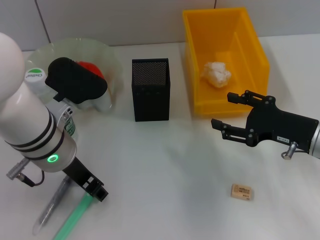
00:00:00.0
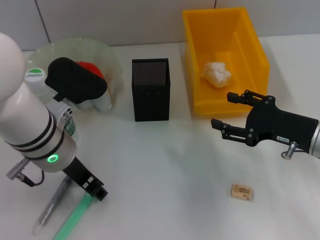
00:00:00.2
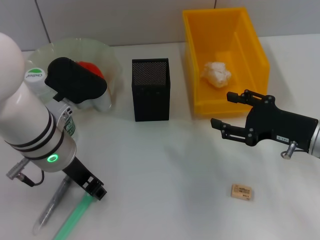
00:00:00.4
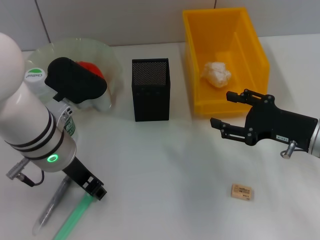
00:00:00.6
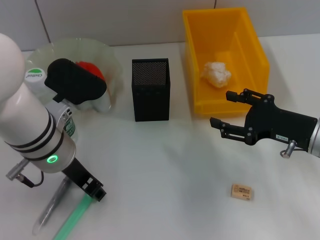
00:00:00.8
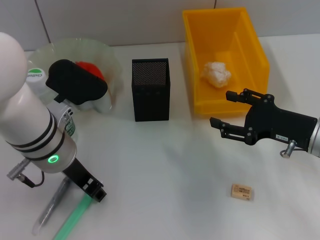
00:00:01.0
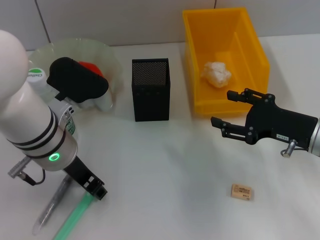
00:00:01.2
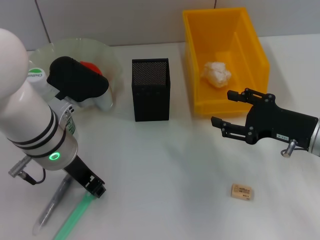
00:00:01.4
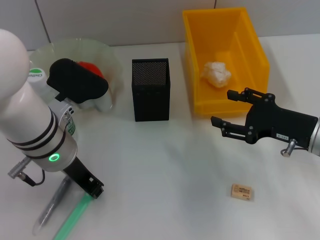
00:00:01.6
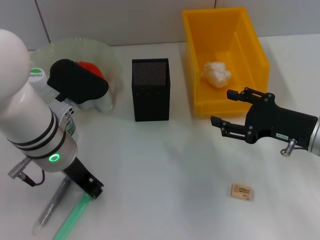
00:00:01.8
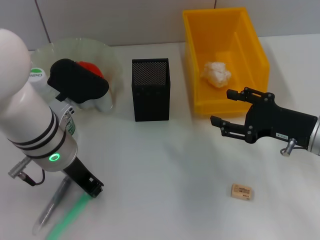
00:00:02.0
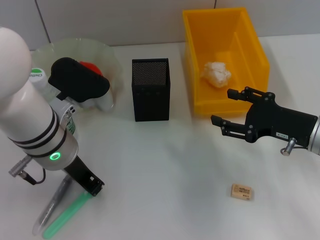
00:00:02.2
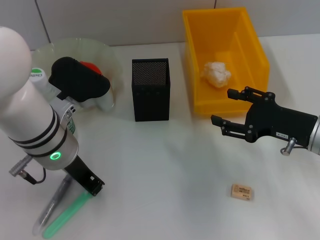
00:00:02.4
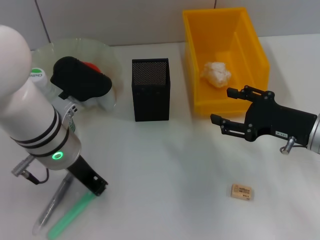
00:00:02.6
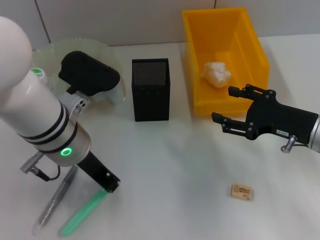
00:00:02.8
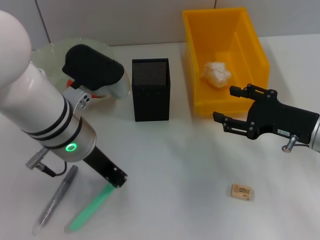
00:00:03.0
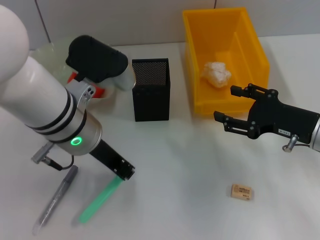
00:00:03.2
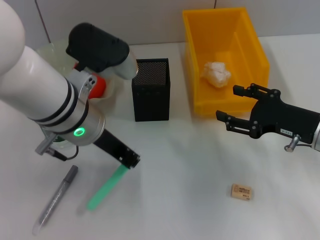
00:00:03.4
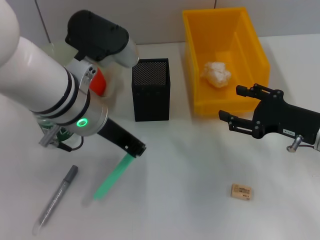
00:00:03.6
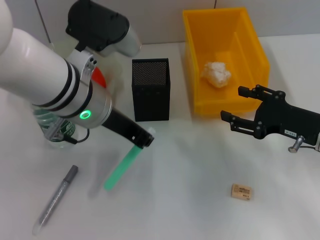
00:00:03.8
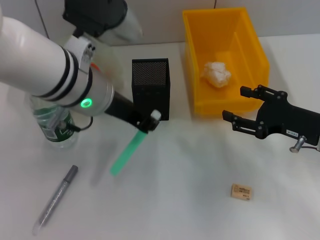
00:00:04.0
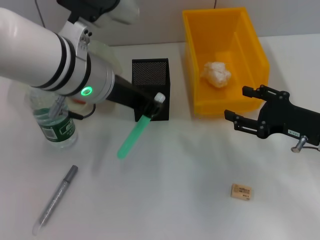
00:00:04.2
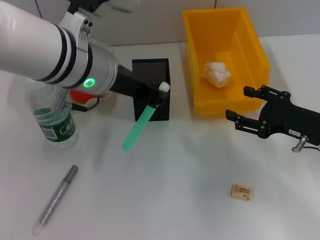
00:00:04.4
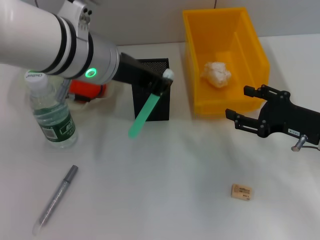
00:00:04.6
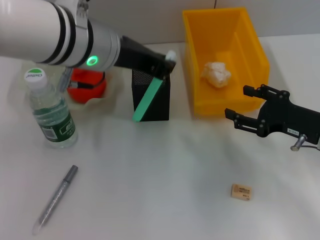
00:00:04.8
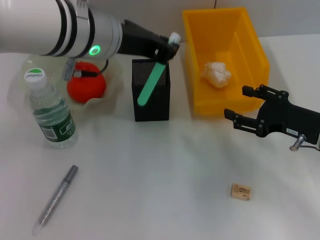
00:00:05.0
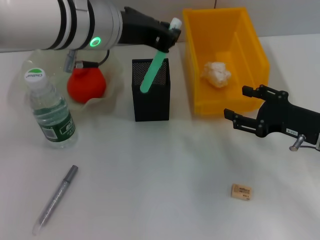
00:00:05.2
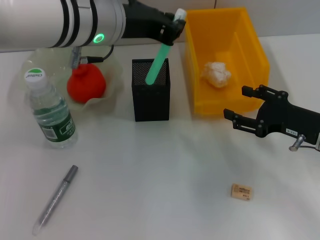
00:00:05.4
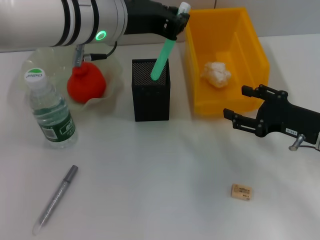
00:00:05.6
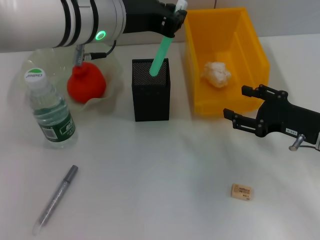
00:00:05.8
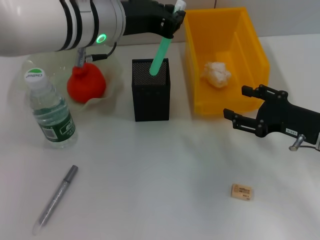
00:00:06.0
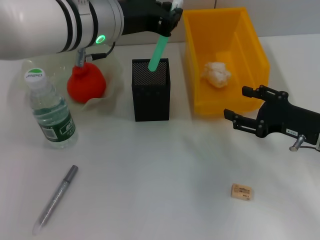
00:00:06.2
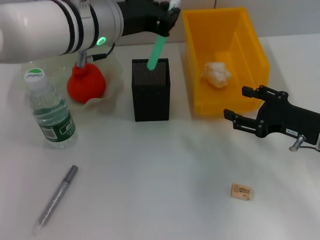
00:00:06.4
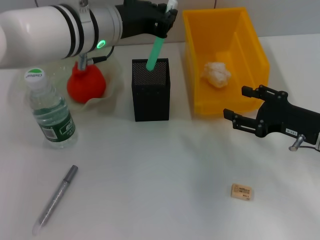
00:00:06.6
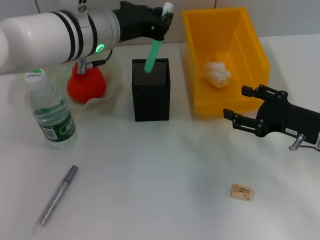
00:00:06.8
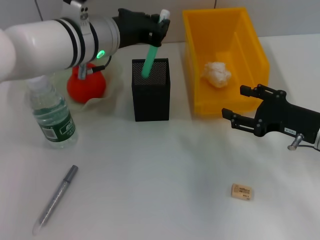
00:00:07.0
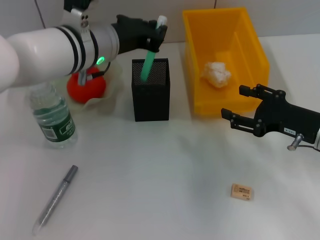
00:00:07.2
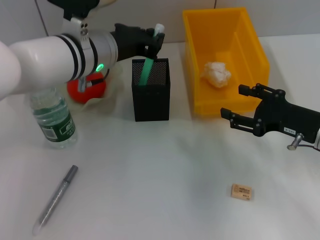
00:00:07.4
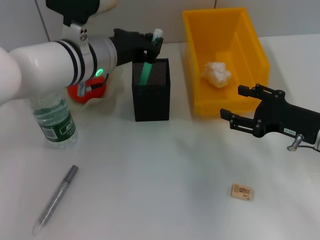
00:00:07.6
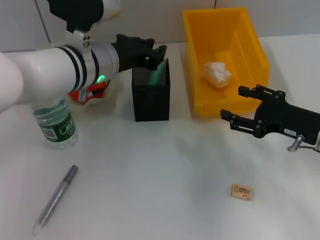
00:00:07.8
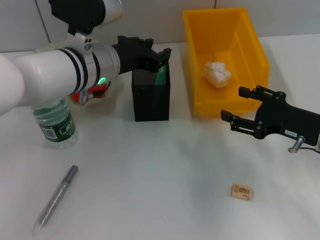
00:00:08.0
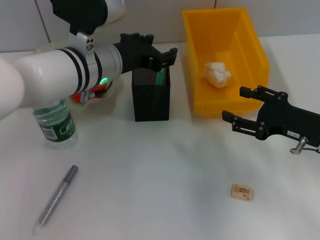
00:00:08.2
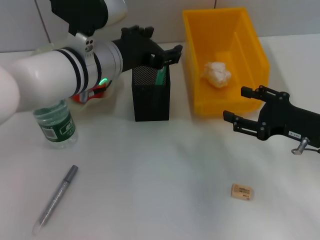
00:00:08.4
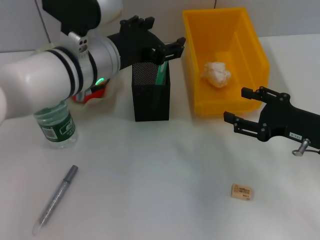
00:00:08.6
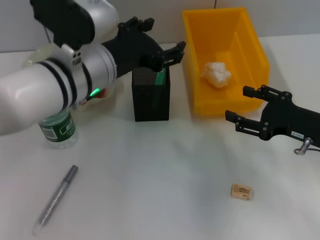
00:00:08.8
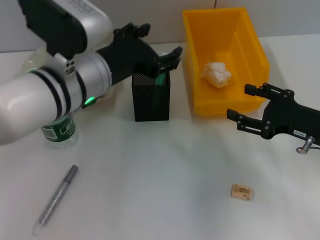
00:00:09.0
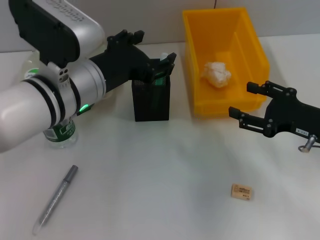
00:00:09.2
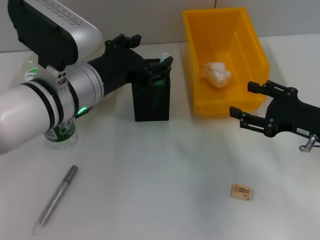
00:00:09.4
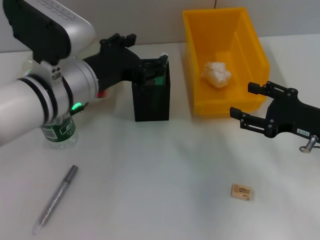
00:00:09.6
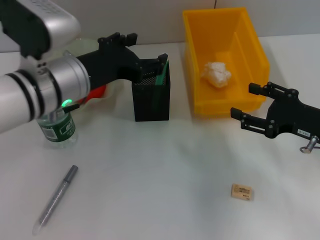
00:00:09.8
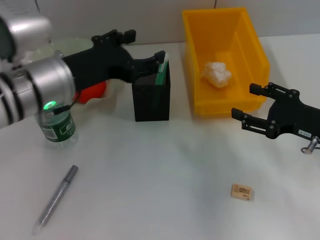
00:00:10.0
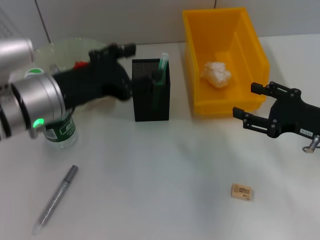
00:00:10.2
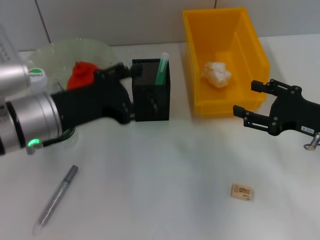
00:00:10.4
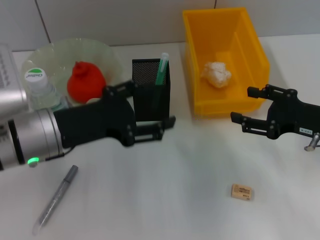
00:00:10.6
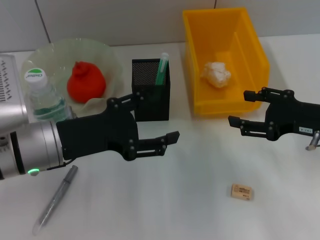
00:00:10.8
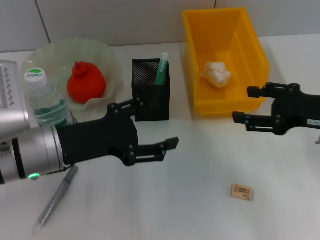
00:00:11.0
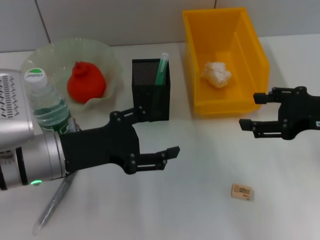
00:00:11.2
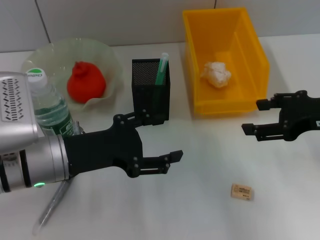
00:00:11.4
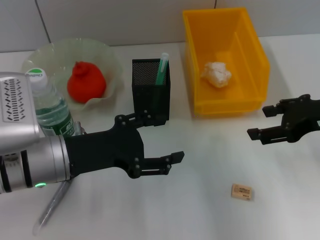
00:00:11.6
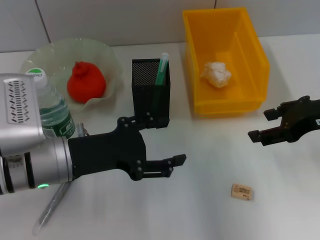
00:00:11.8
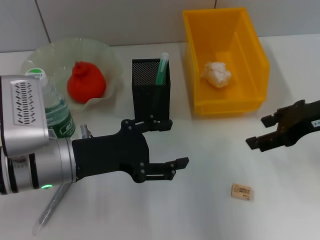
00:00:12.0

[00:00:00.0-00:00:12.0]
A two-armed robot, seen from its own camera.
Step, 00:00:00.0 to 00:00:02.8: Grab the blue utility knife with the left hand.
Step, 00:00:03.0 to 00:00:08.2: Place the blue utility knife into the pen holder with the left hand.
00:00:00.0 to 00:00:01.6: The two grippers keep their place.
00:00:01.6 to 00:00:03.0: The grippers move only a little.
00:00:03.0 to 00:00:04.4: The left gripper moves upward, some 5 cm.
00:00:06.0 to 00:00:07.6: The left gripper moves downward, some 5 cm.
00:00:07.6 to 00:00:09.0: The left gripper shifts some 5 cm backward, and opens its fingers.
00:00:09.0 to 00:00:10.4: The left gripper travels to the left by some 5 cm.
00:00:10.4 to 00:00:12.0: The right gripper is displaced upward by about 10 cm.

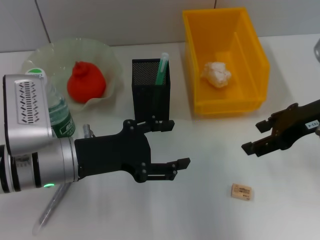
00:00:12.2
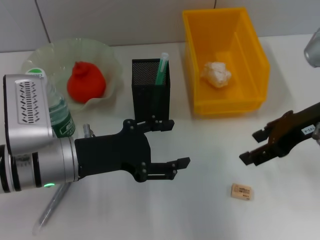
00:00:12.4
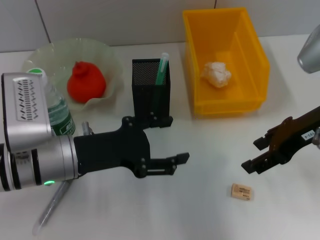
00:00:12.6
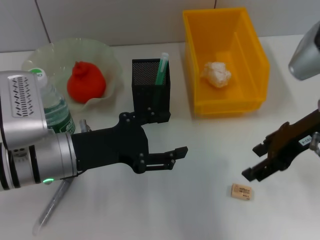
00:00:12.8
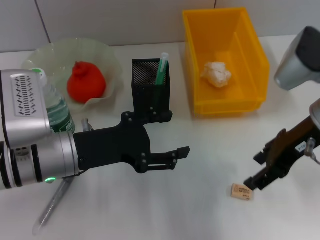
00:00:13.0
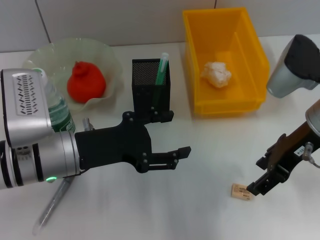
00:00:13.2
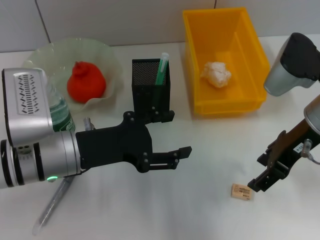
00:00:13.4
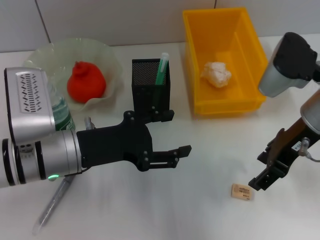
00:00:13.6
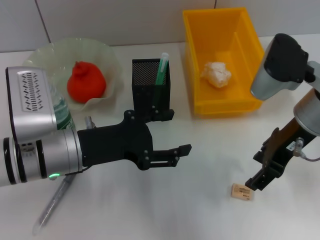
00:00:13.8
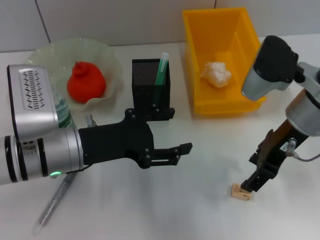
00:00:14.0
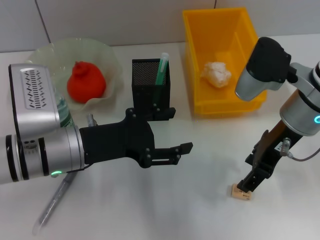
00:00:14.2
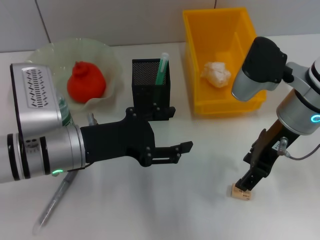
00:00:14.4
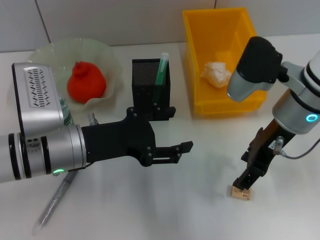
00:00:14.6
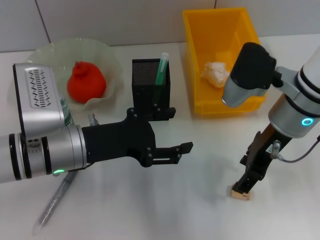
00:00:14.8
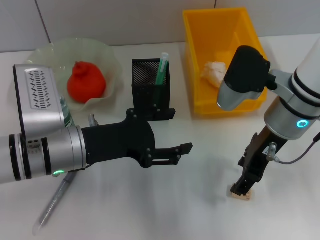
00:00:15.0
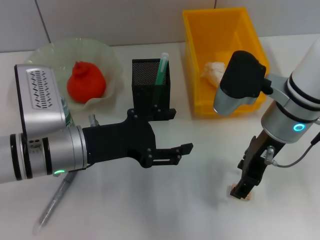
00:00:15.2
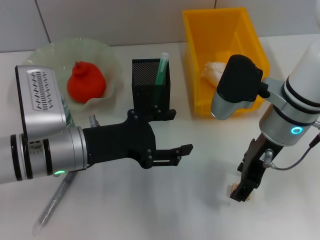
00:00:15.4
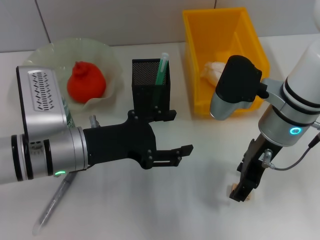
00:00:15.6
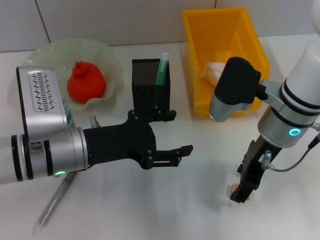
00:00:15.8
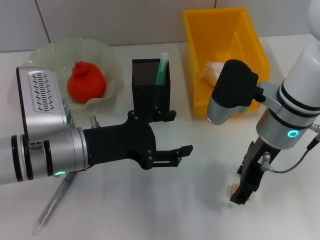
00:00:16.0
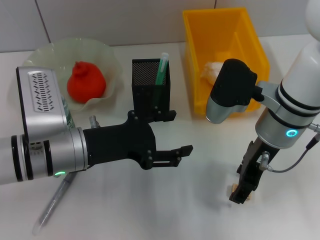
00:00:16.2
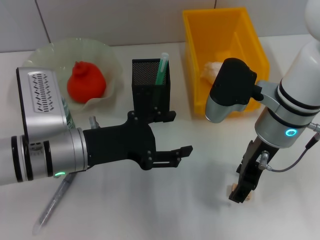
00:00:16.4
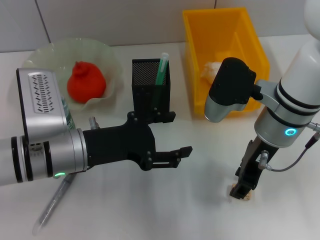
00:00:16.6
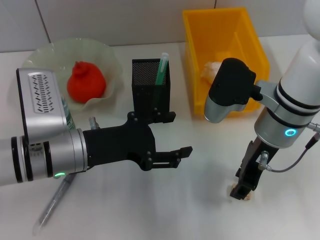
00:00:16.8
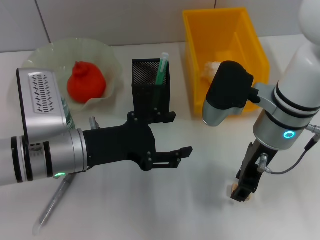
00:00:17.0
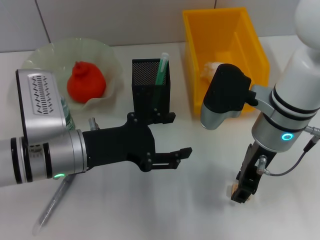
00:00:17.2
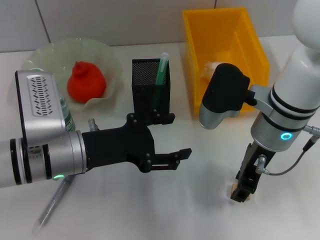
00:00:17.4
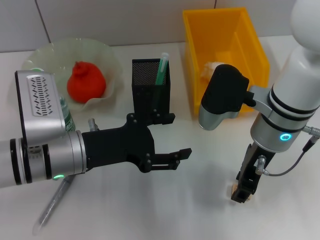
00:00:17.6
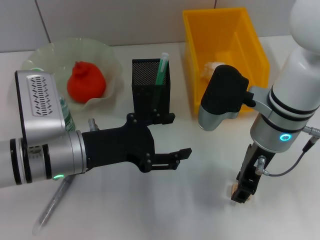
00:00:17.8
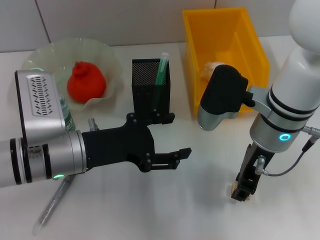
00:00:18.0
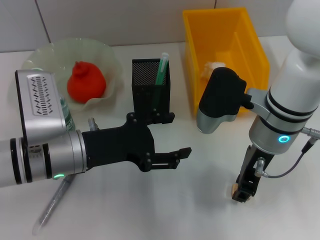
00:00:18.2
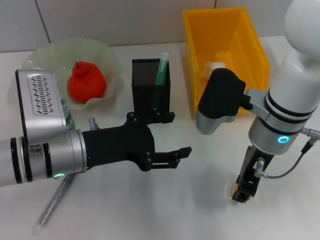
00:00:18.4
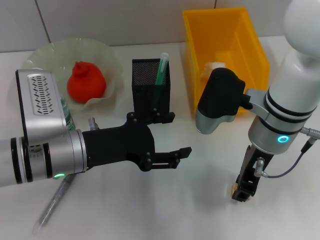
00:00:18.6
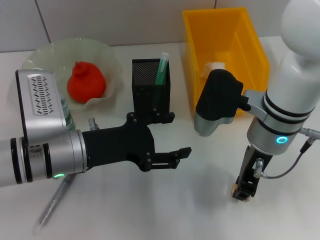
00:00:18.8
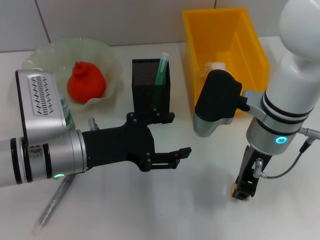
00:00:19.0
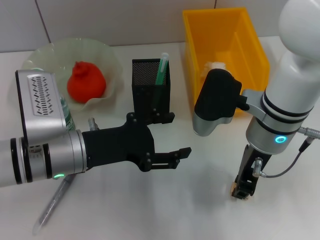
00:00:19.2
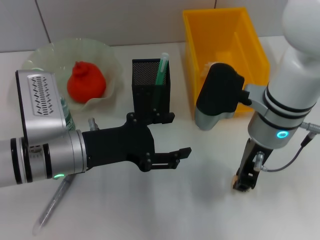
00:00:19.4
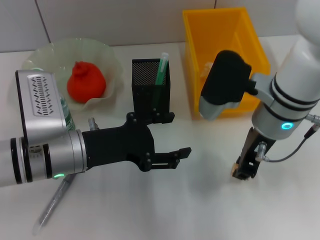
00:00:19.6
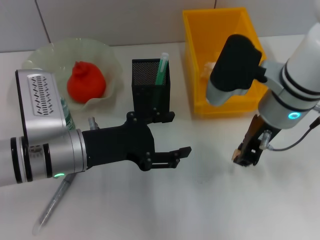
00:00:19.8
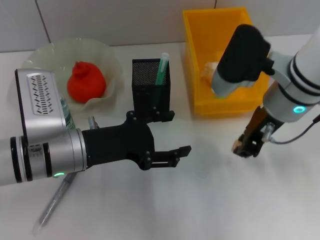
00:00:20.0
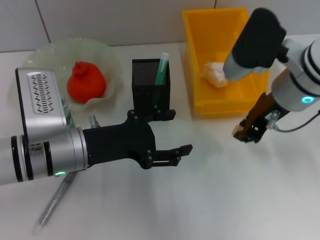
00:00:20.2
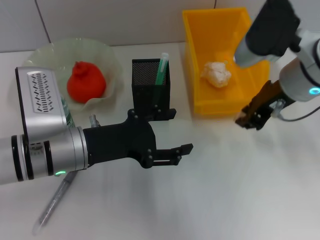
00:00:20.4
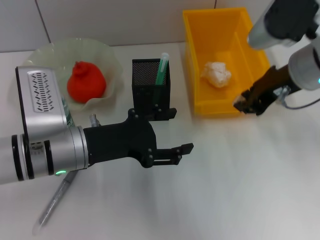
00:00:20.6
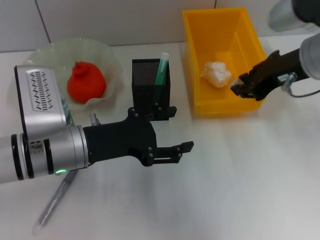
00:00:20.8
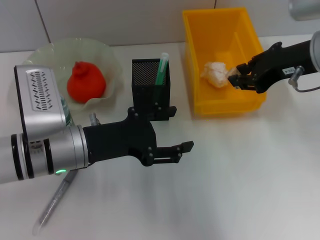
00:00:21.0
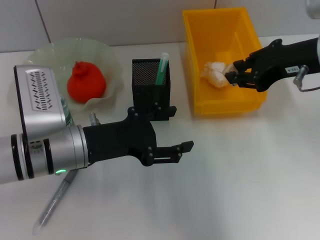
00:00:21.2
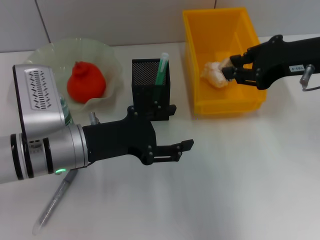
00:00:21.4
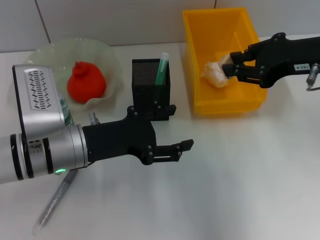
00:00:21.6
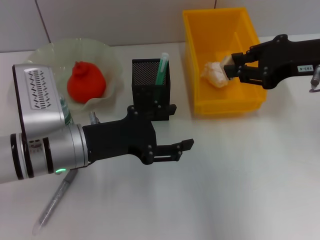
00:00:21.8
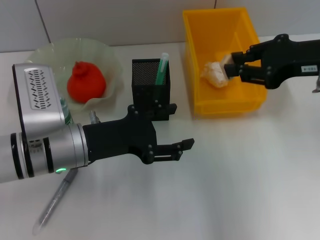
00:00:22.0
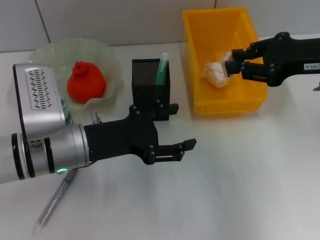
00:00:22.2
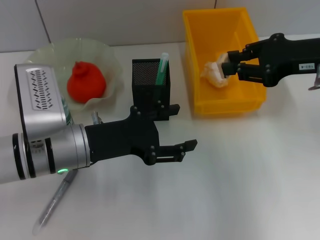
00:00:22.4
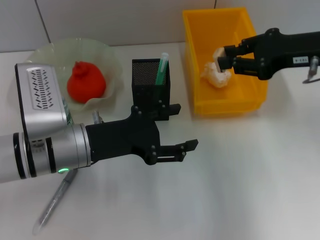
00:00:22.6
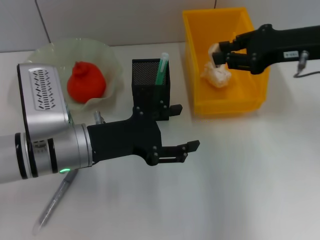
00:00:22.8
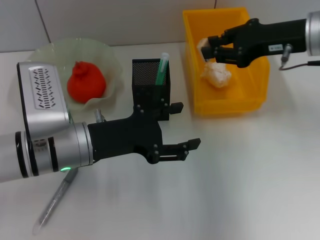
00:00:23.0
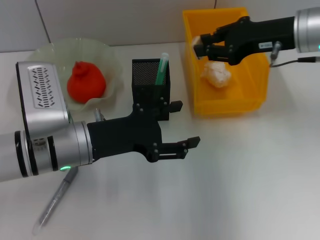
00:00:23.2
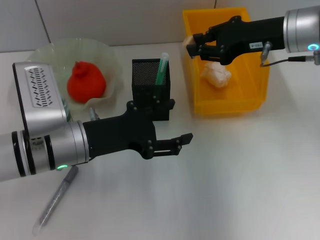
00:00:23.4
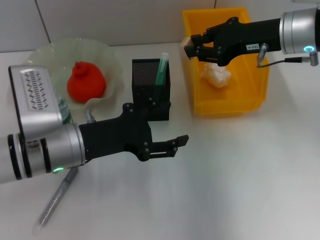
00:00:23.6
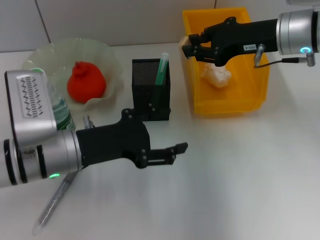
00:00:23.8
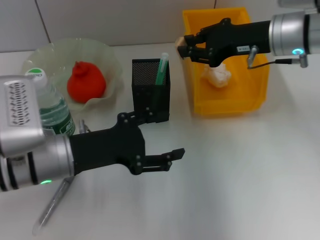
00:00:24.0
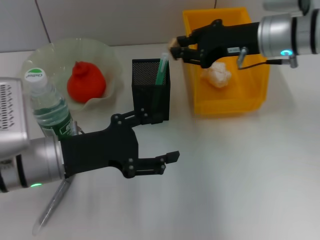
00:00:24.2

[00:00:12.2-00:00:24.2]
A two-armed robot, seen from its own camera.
Step, 00:00:12.2 to 00:00:19.4: Grab the eraser with the right hand.
00:00:12.2 to 00:00:13.8: The right gripper is displaced to the left by approximately 5 cm.
00:00:13.8 to 00:00:15.2: The grippers move only a little.
00:00:15.2 to 00:00:16.6: Both grippers stay put.
00:00:16.6 to 00:00:18.2: The right gripper closes.
00:00:18.2 to 00:00:19.8: The grippers stay close to where they were, moving slightly.
00:00:19.8 to 00:00:21.2: The right gripper heads to the right and upward, covering about 10 cm.
00:00:22.6 to 00:00:24.2: The right gripper moves to the left and forward, approximately 10 cm.
